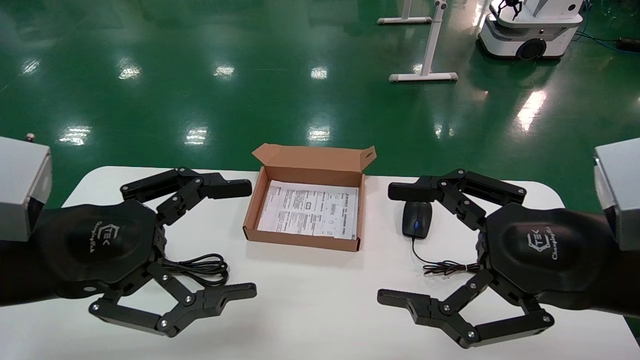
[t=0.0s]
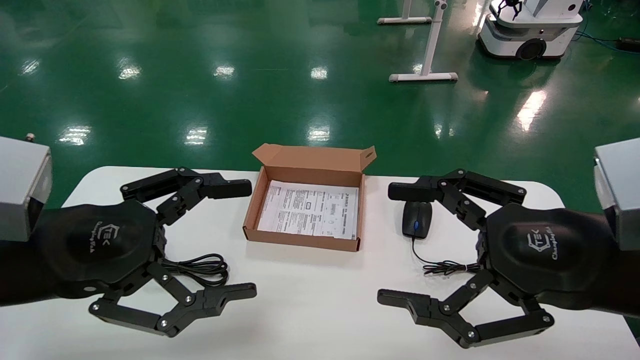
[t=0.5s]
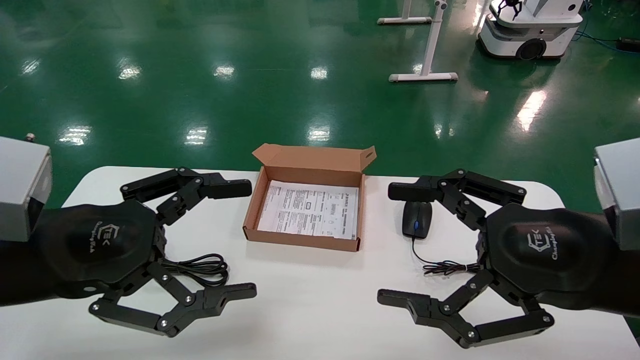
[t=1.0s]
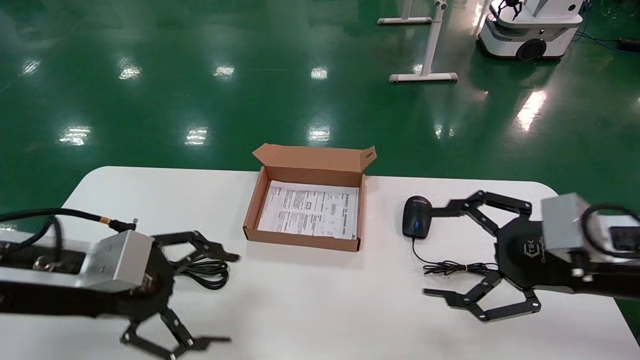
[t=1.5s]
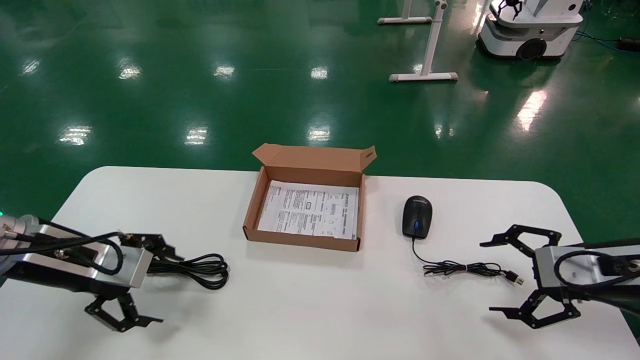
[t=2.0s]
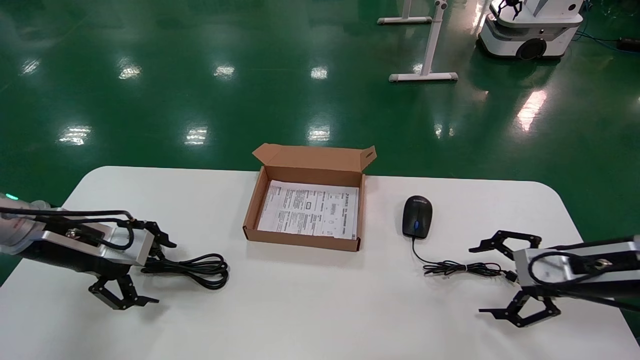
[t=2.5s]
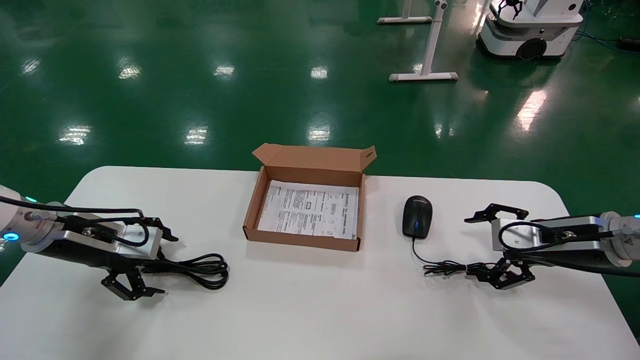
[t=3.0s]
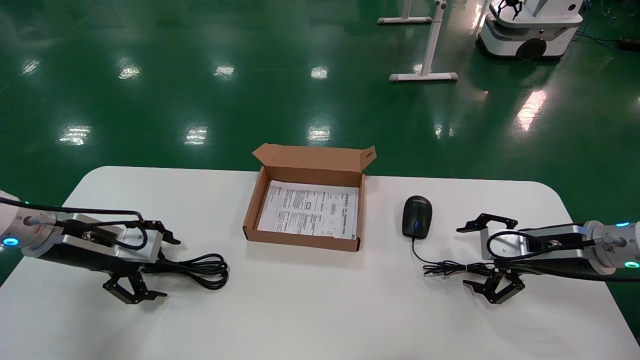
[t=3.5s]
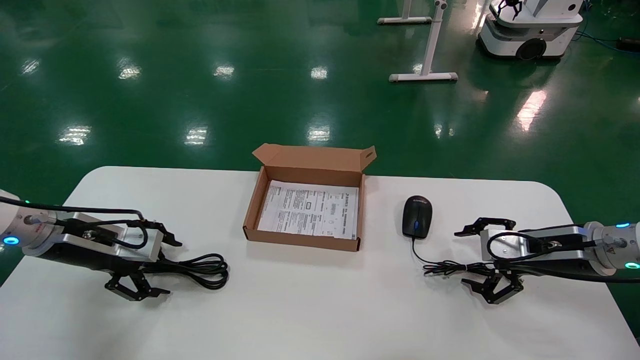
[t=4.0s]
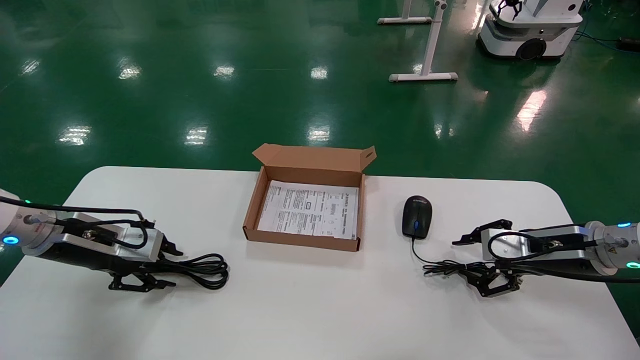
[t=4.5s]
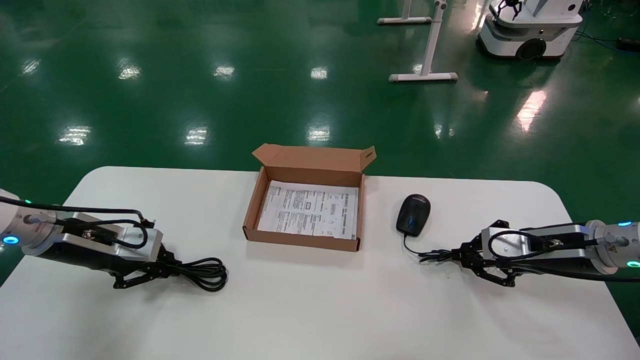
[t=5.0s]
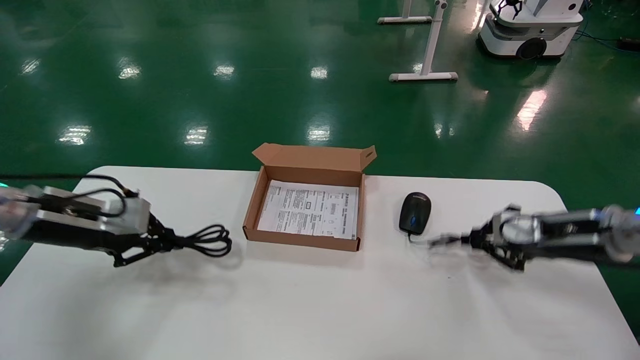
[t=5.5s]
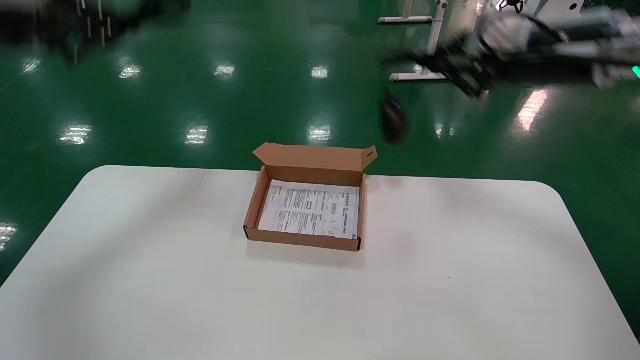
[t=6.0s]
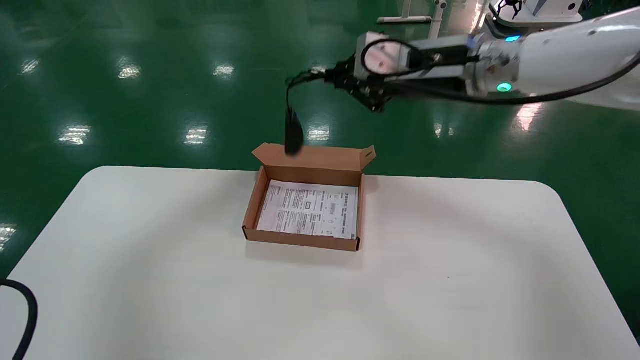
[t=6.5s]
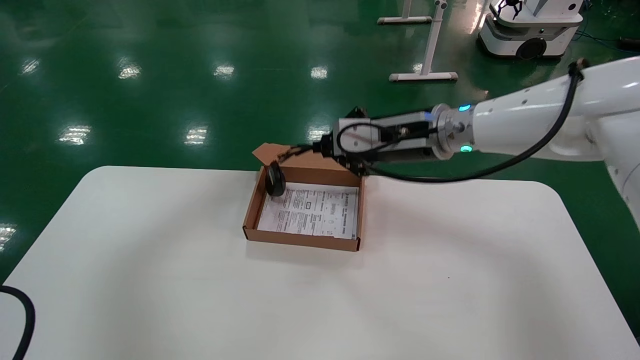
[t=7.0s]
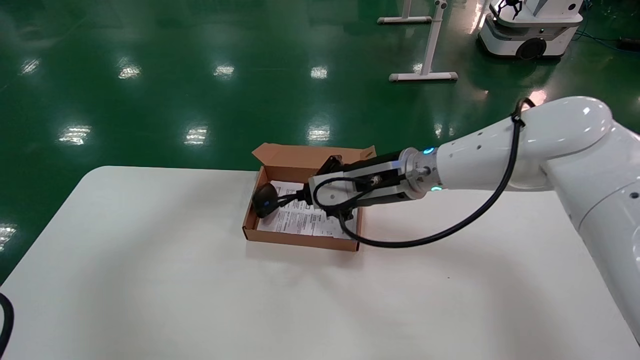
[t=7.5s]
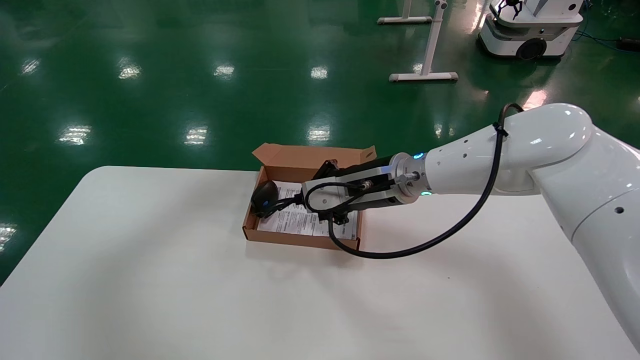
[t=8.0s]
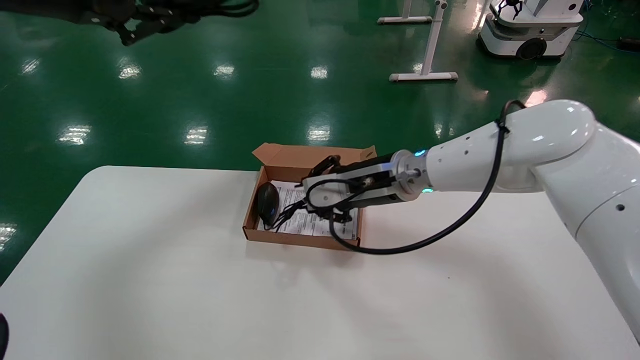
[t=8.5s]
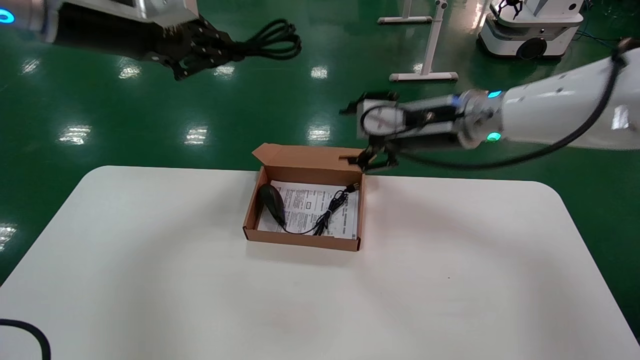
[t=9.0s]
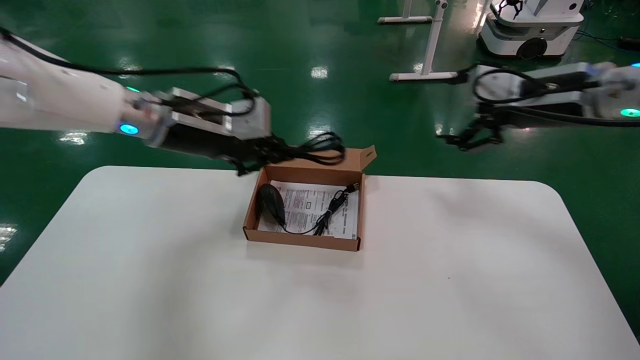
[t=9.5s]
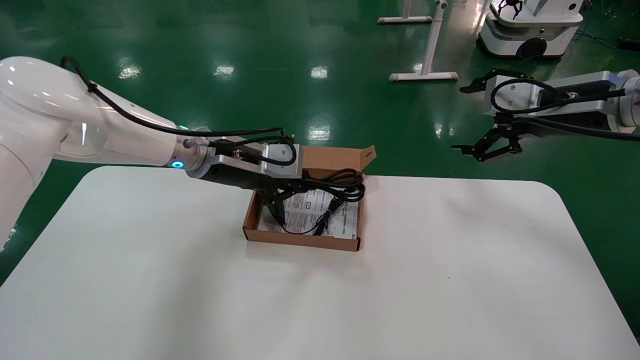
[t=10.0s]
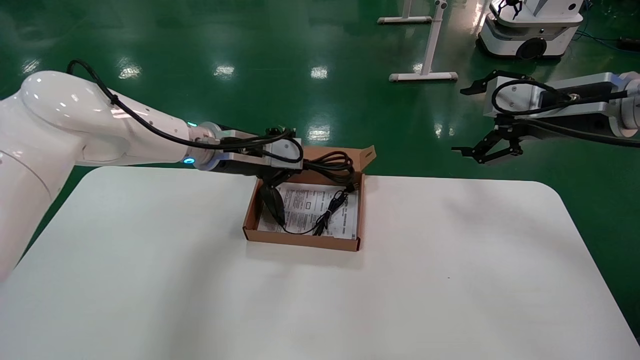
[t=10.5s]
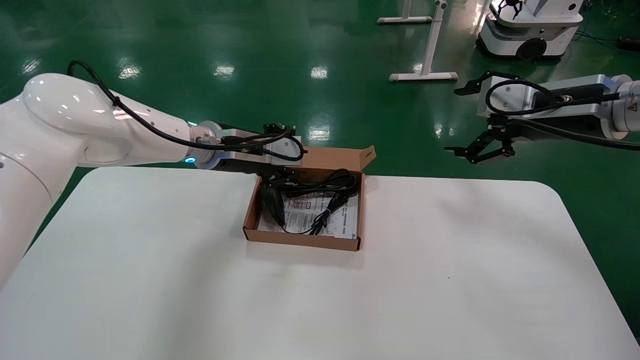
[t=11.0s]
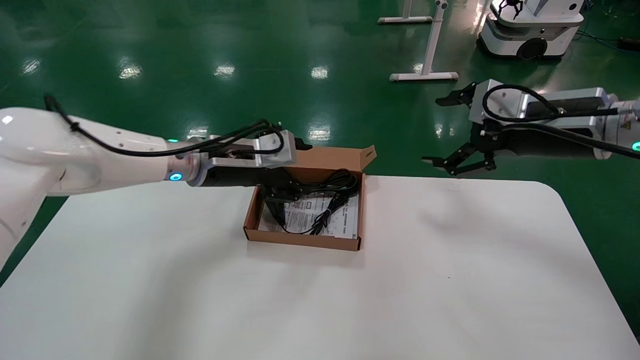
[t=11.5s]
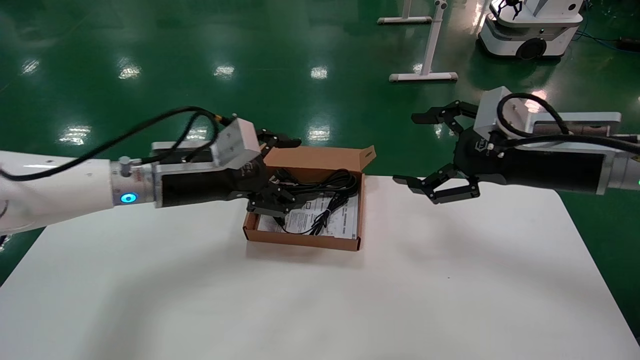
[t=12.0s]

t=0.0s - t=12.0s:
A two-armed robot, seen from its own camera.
Step, t=2.0s - t=5.0s: Grab and lift both the mouse and power cord from the accessory packaging area at the same time.
Step, t=5.5s - t=11.0s: Place the mouse and power cord into the box.
t=0.0s - t=2.0s: The left gripper heads forward, to the left and downward, covering about 15 cm. Meanwhile the right gripper shifts roughly 20 cm to the right, forward and downward.
t=2.0s - t=4.0s: The two grippers go approximately 5 cm forward.
t=4.0s - t=6.0s: Both grippers travel together upward, roughly 25 cm. The left gripper closes. The right gripper closes up.
t=6.0s - t=8.0s: The right gripper shifts approximately 25 cm to the left and downward; the left gripper moves upward and to the right, approximately 10 cm.
t=8.0s - t=10.0s: The right gripper heads to the right and upward, covering approximately 25 cm, and opens. The left gripper is displaced downward, to the right and forward by some 30 cm.
t=10.0s - t=12.0s: The left gripper goes roughly 5 cm backward, and opens its fingers, while the right gripper is displaced backward and downward by about 10 cm.

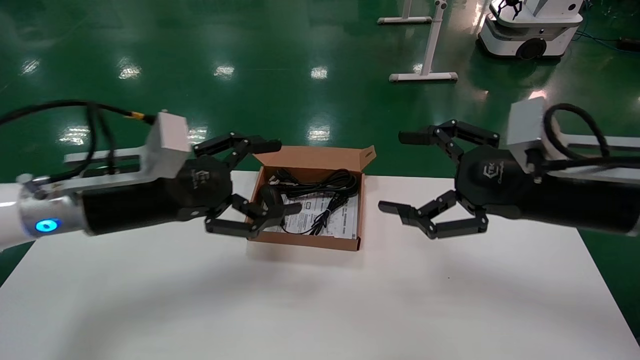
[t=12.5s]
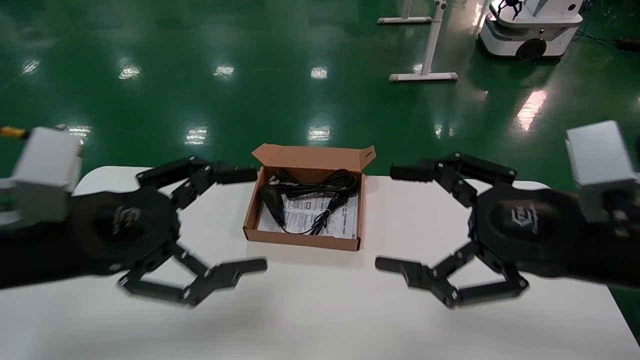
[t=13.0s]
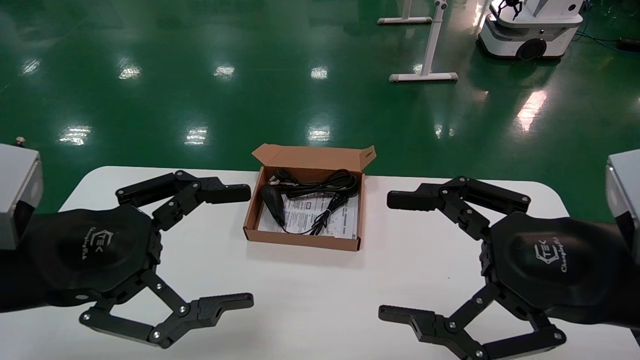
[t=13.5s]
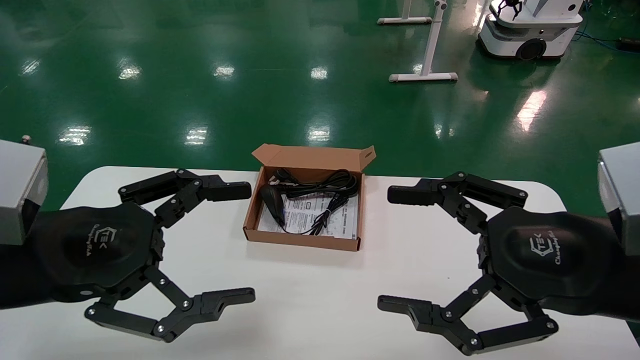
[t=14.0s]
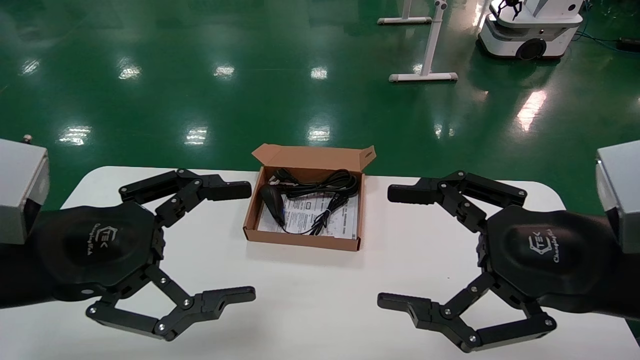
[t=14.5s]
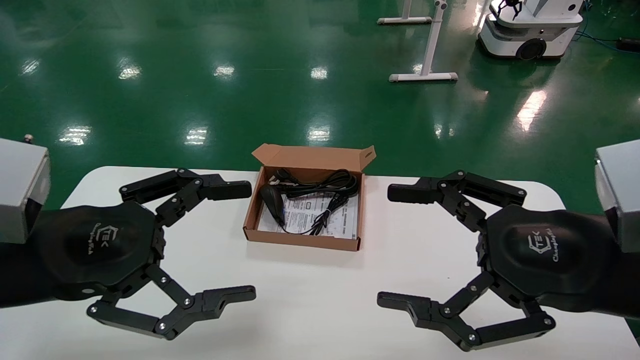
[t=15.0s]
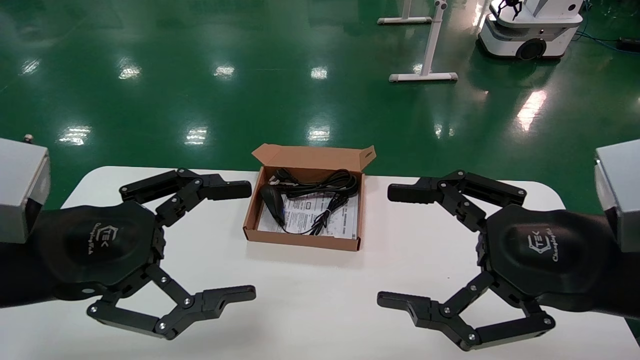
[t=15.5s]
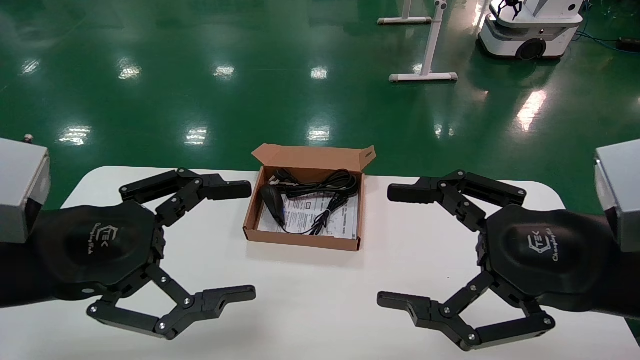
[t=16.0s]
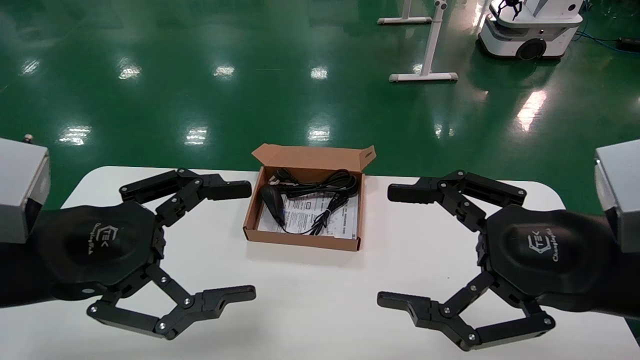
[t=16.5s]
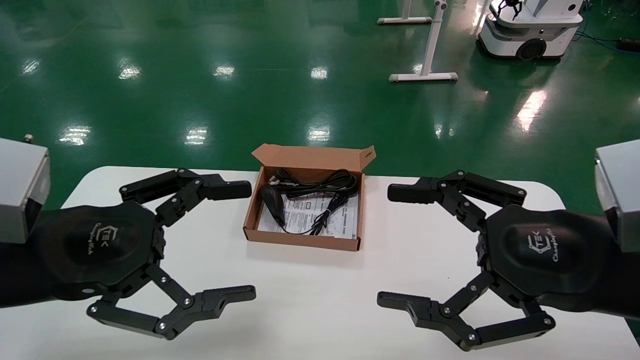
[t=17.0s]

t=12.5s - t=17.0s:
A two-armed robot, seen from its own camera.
t=12.5s - t=14.5s: The two grippers go roughly 10 cm backward.
t=14.5s - t=17.0s: Neither gripper changes place.
